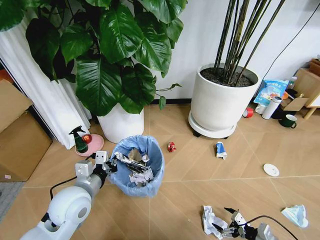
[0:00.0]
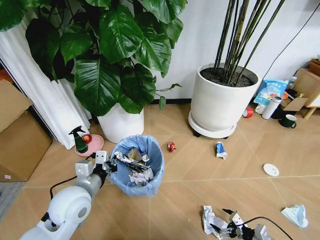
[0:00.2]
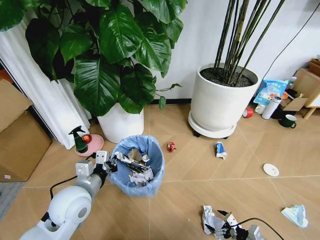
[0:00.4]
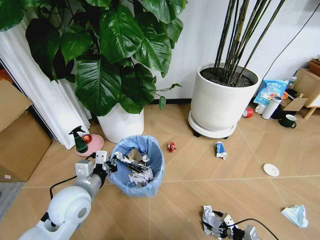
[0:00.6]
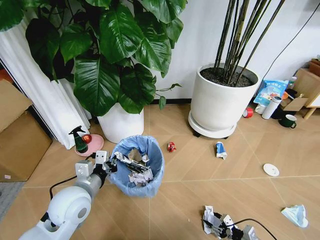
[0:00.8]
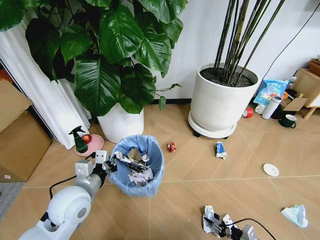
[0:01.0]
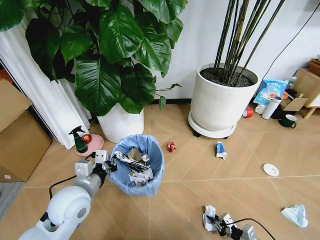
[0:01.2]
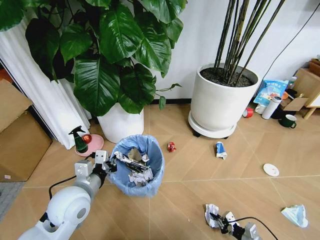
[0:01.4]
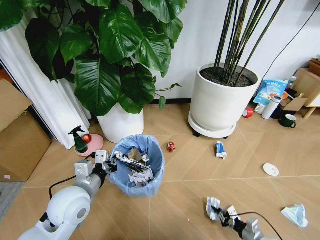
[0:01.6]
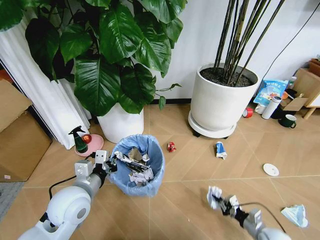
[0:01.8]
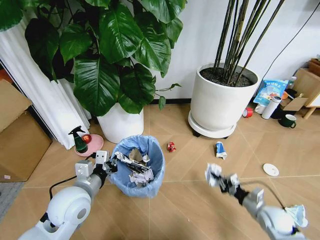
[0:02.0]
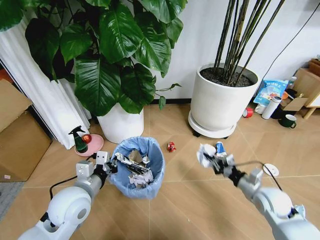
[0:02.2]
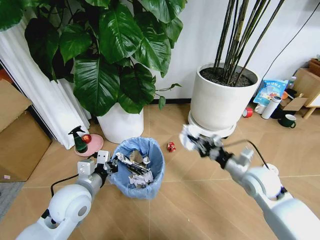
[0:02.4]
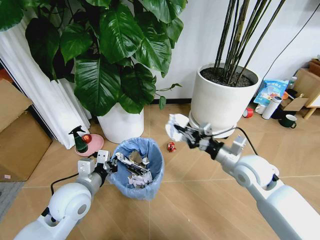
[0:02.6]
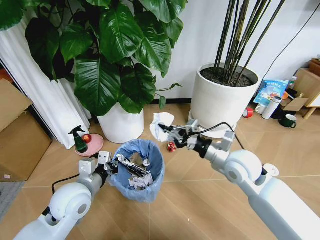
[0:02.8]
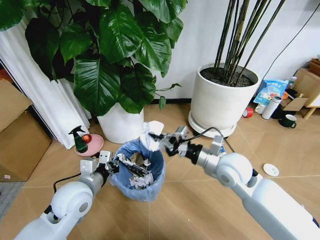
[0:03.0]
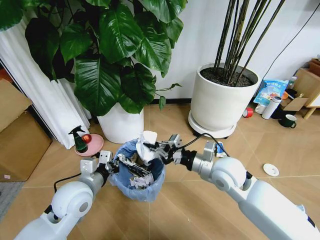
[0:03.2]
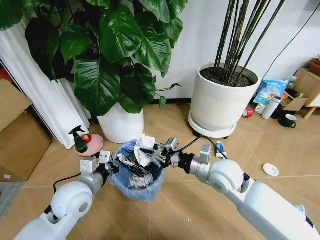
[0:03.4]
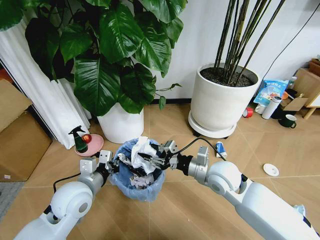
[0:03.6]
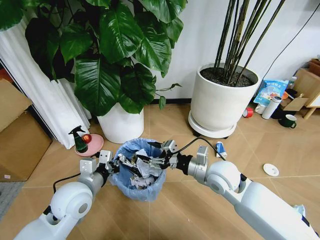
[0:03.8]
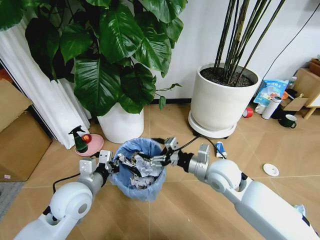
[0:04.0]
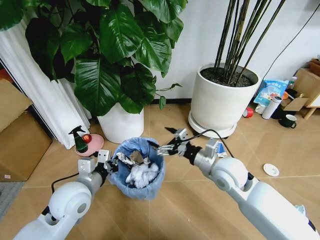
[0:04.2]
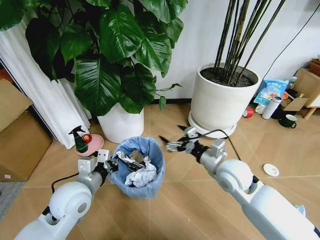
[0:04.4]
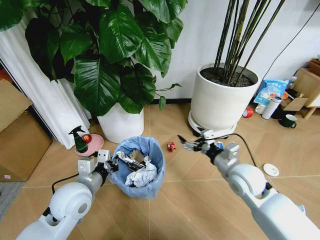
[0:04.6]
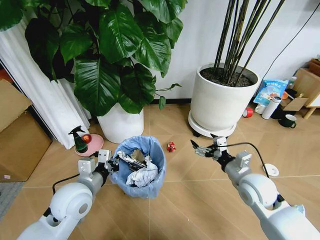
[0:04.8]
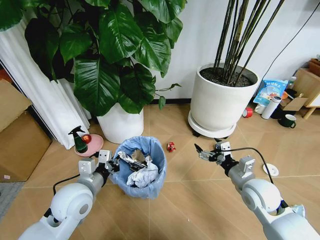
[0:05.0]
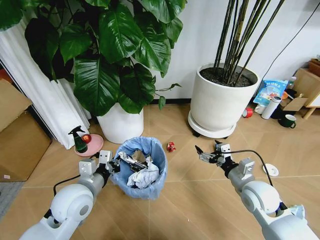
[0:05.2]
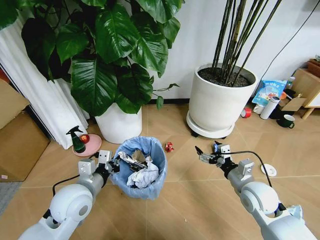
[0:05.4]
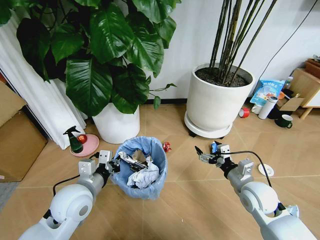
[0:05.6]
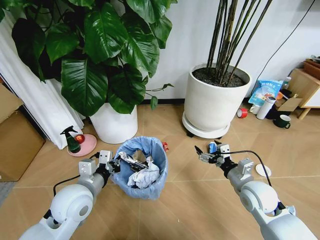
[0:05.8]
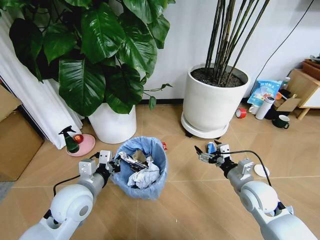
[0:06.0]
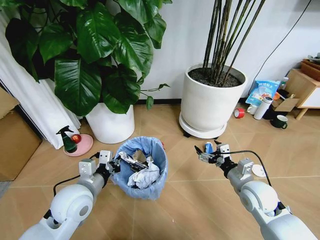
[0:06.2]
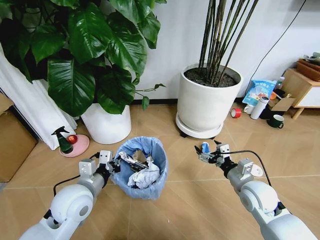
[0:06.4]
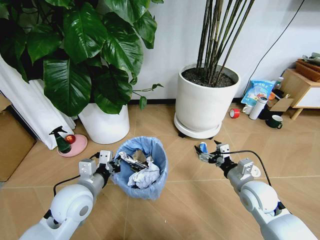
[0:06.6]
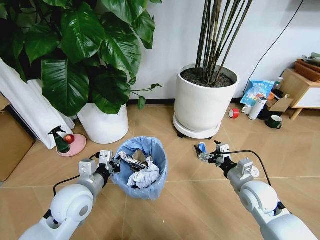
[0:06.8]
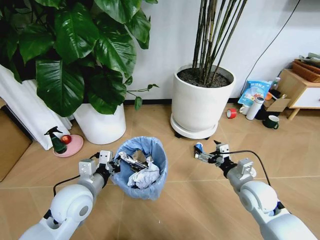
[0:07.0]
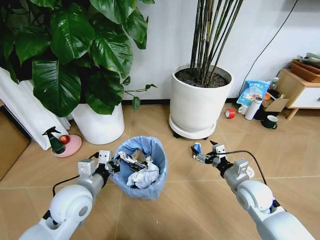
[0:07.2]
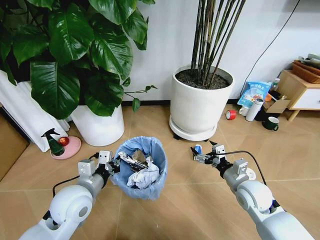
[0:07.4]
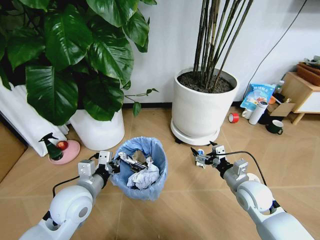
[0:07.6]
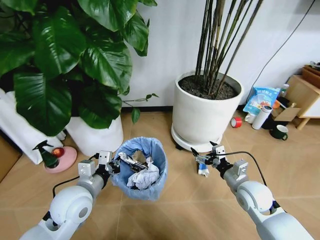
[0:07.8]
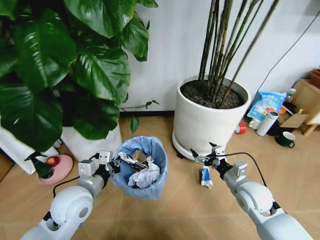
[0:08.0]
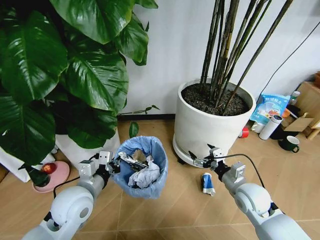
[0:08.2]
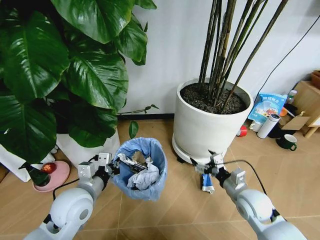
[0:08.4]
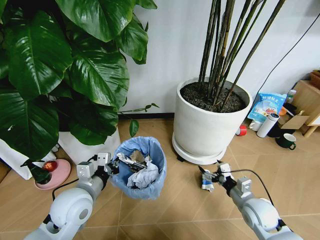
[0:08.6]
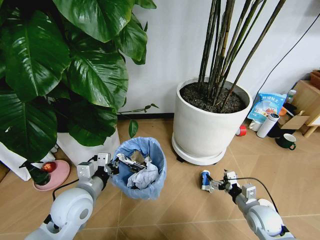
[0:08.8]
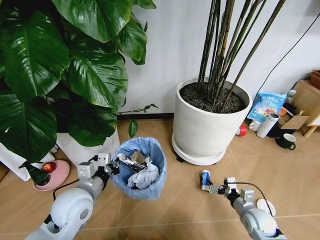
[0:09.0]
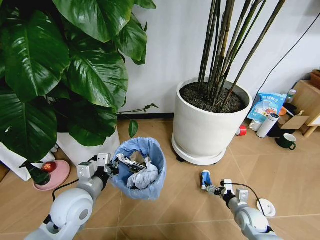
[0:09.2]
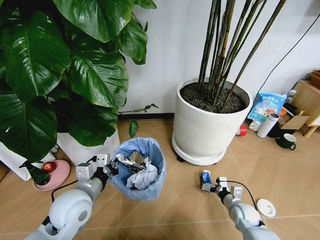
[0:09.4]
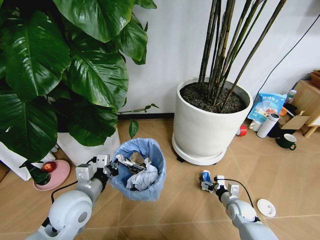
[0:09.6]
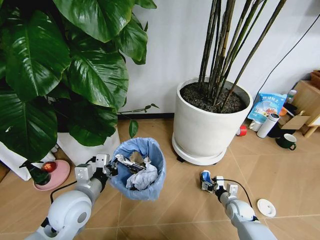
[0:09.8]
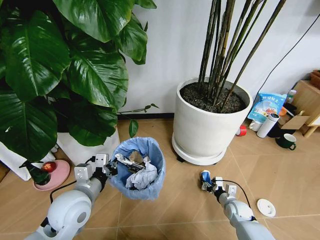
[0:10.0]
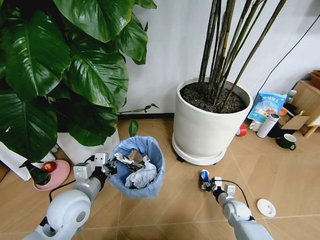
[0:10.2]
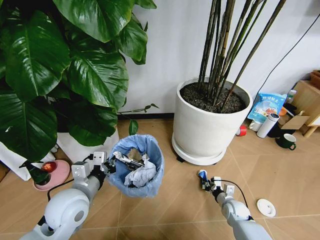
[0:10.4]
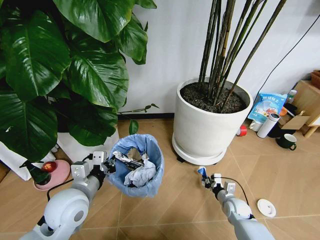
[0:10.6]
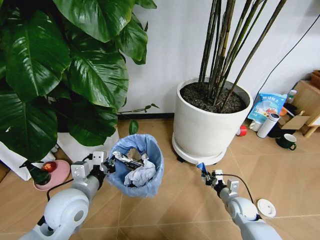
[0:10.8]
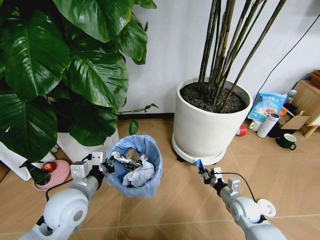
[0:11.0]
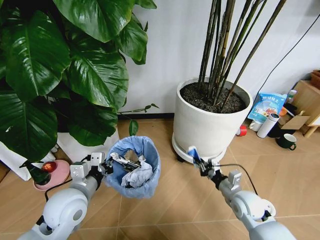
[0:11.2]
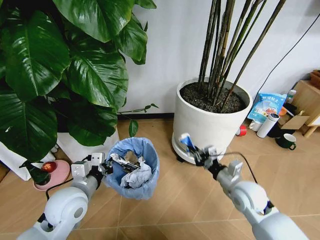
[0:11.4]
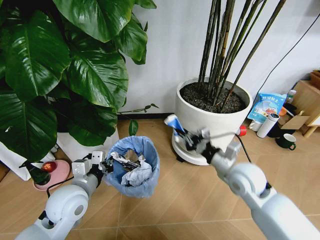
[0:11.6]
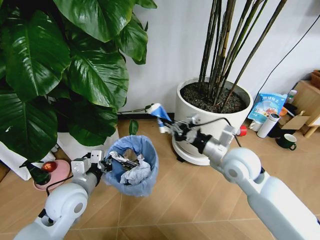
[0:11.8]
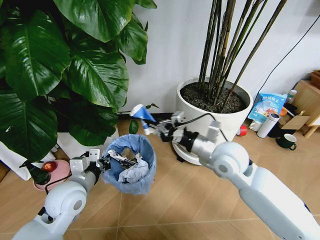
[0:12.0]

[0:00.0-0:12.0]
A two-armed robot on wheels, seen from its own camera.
Task of the whole recording: Pick up the trash bin and place the garbage on the floor into it.
0:00.0 to 0:01.6: The right gripper is displaced downward by some 5 cm, and closes.
0:01.6 to 0:03.0: The right gripper shifts approximately 40 cm upward, to the left and forward.
0:03.0 to 0:04.4: The right gripper opens up.
0:04.4 to 0:06.0: The right gripper heads to the right and downward, covering some 10 cm.
0:07.6 to 0:09.0: The right gripper travels downward and to the right by roughly 15 cm.
0:09.0 to 0:10.4: The right gripper goes some 10 cm downward and forward, and closes up.
0:10.4 to 0:12.0: The right gripper heads upward, covering about 35 cm.

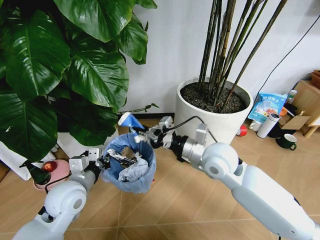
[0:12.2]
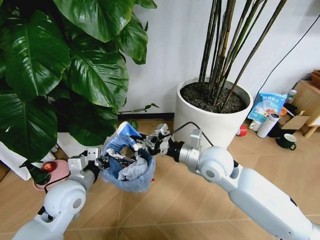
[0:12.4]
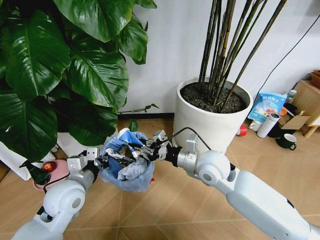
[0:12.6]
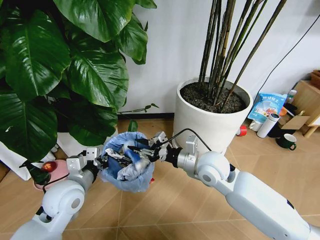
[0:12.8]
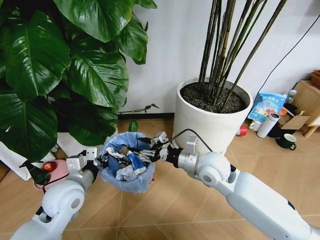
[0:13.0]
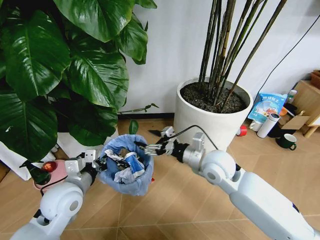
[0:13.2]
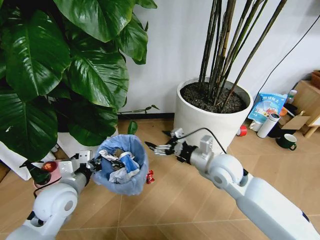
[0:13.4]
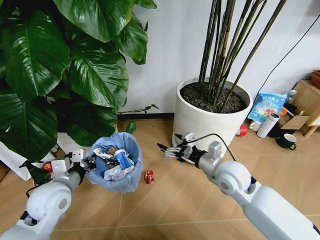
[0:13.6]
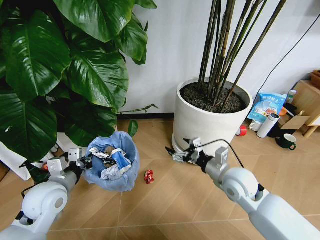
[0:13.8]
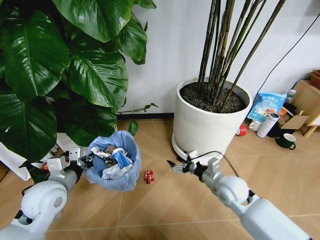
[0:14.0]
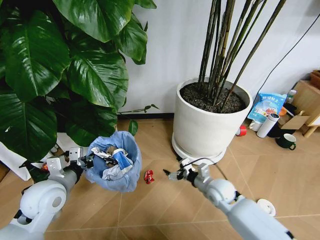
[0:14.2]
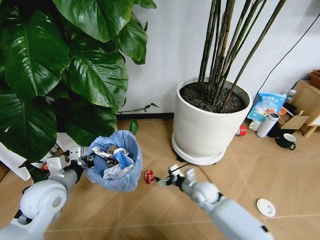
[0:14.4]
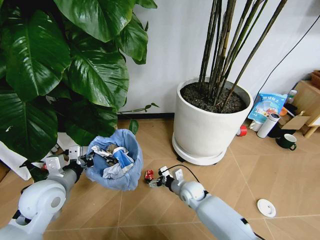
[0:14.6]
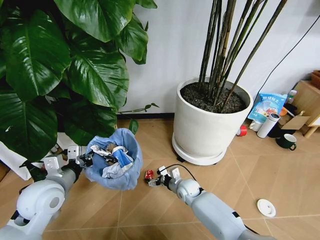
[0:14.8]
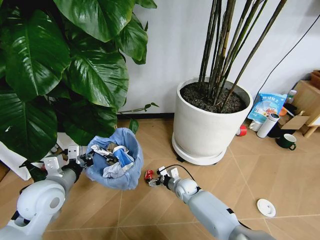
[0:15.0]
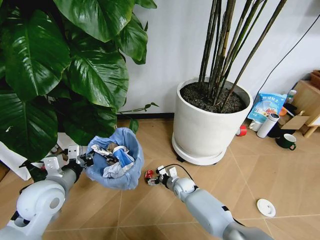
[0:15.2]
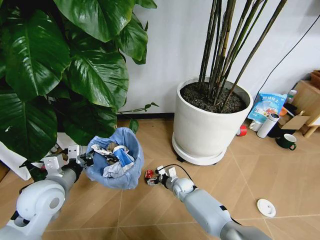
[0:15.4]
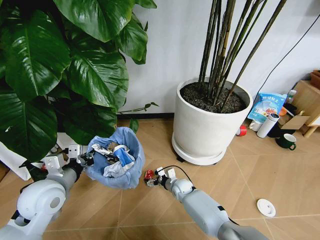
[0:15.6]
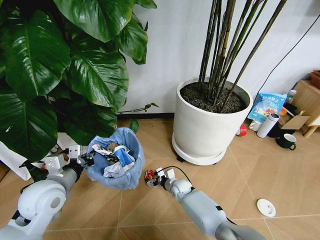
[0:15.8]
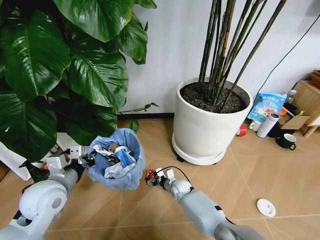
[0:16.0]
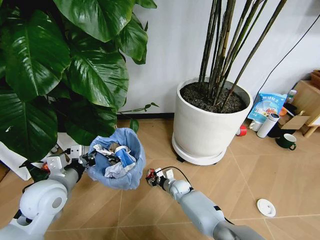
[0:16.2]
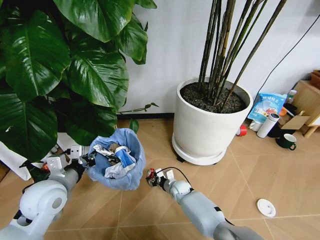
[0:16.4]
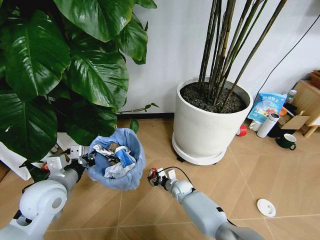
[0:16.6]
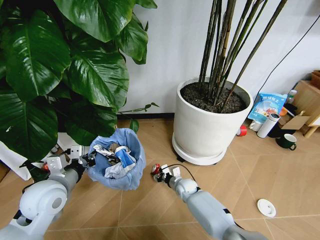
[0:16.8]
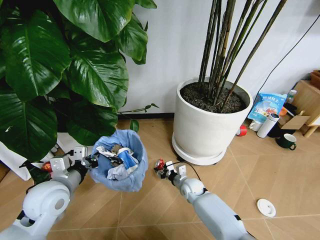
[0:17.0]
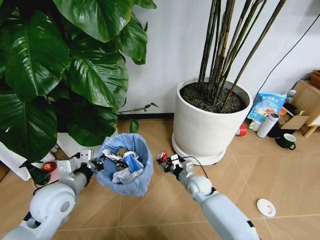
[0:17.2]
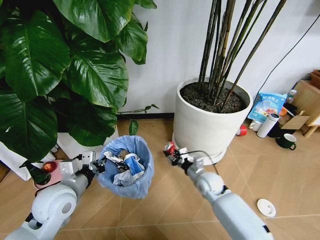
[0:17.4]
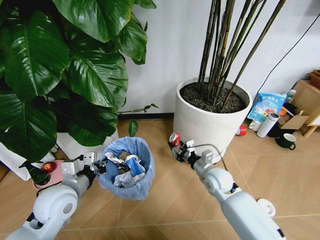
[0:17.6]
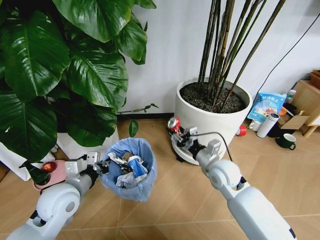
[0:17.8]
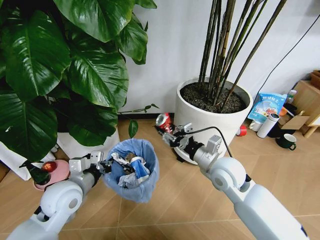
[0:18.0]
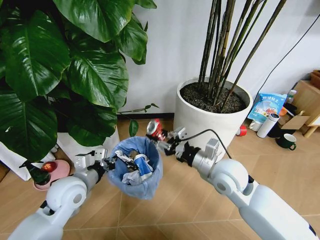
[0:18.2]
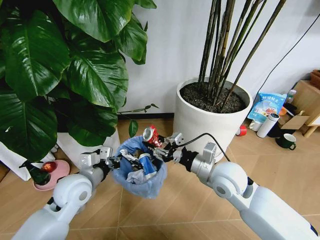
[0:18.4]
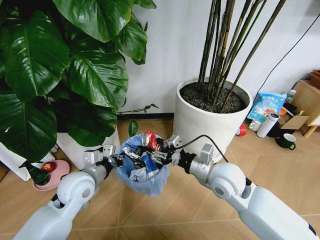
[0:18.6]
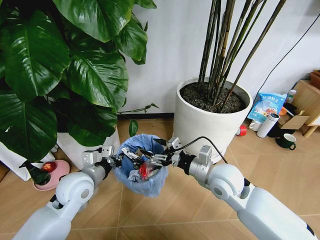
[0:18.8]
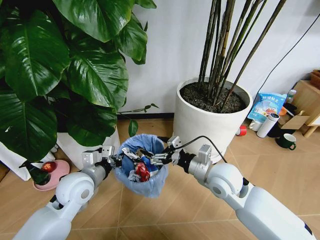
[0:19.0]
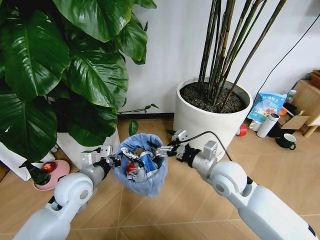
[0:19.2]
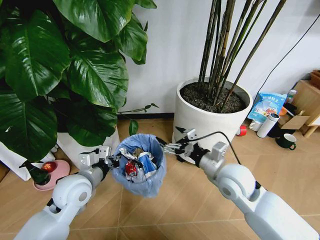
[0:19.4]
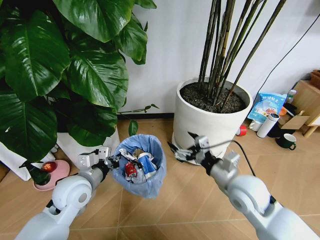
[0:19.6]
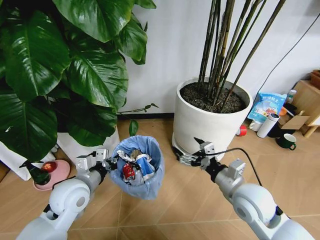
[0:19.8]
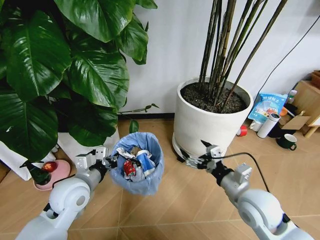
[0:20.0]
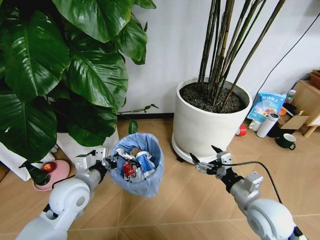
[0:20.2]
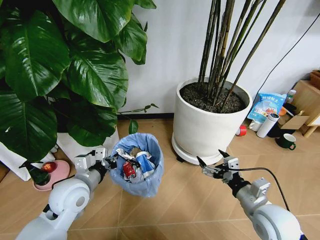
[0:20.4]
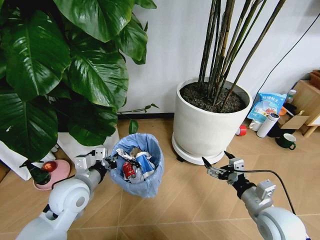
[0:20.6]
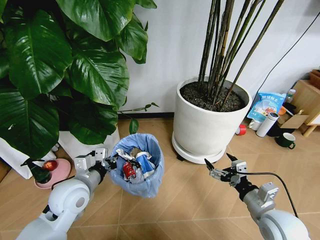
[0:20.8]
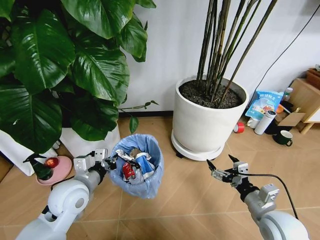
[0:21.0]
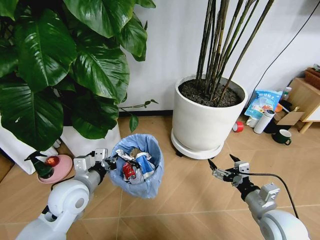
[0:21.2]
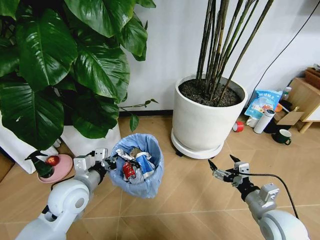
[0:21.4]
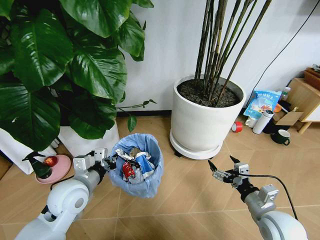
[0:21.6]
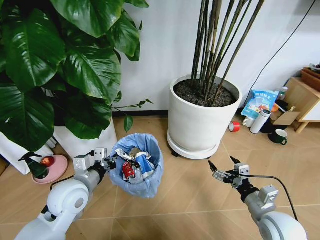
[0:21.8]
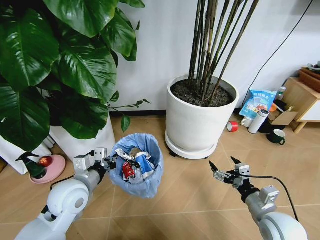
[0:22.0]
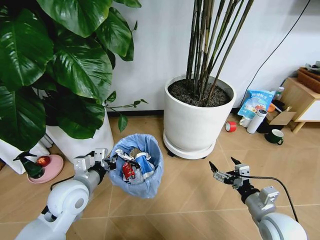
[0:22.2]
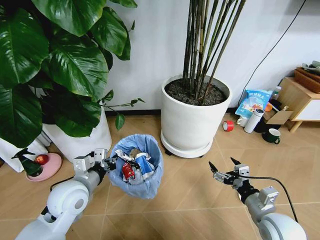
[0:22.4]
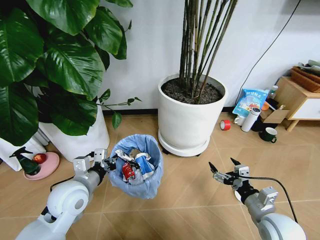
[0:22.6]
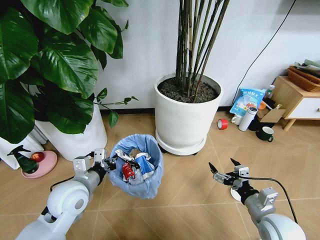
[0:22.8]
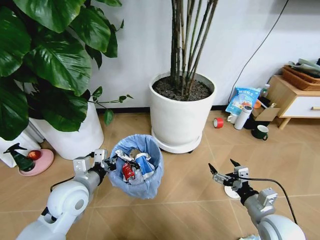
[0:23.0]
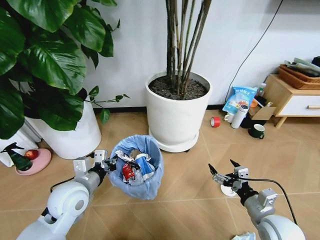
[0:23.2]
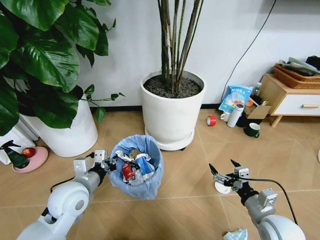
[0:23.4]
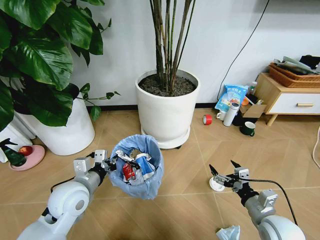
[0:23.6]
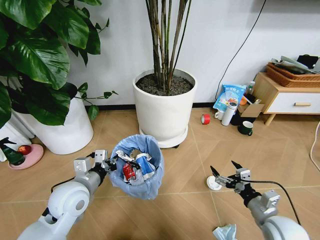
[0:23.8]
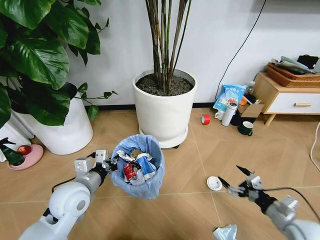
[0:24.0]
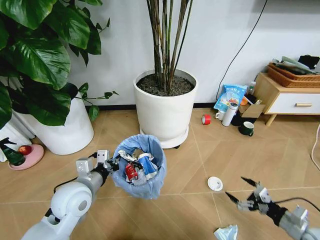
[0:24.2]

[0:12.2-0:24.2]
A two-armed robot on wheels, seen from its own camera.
Task of the whole recording: Pick up the trash bin and place the garbage on the floor into it.
0:12.2 to 0:13.8: The left gripper travels to the left by roughly 5 cm. Meanwhile the right gripper travels downward and to the right by roughly 10 cm, and opens its fingers.
0:13.8 to 0:15.2: The right gripper goes approximately 30 cm downward and to the left.
0:15.2 to 0:16.6: The right gripper closes up.
0:16.6 to 0:18.2: The right gripper goes approximately 30 cm upward.
0:18.2 to 0:19.8: The right gripper is displaced backward by some 5 cm, and opens.
0:19.8 to 0:21.2: The right gripper heads to the right, downward and backward, covering approximately 10 cm.
0:22.6 to 0:24.2: The right gripper travels to the right by approximately 15 cm.
